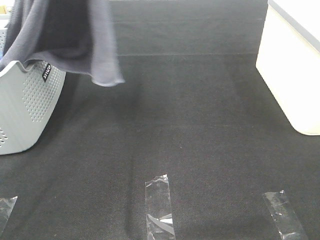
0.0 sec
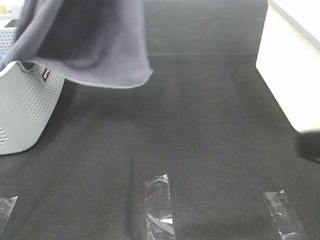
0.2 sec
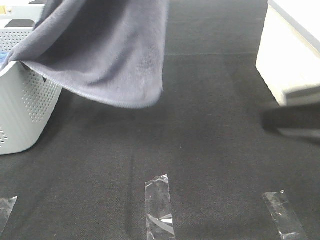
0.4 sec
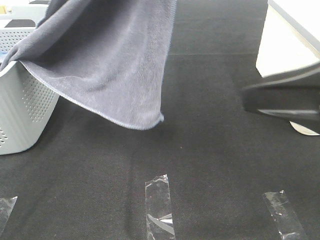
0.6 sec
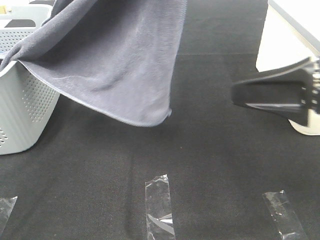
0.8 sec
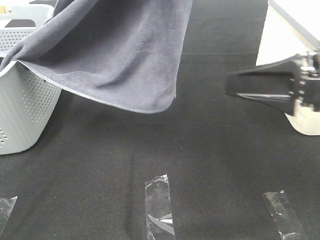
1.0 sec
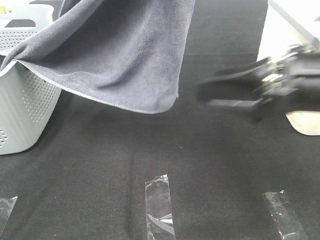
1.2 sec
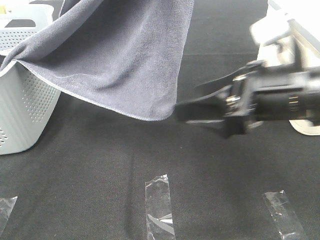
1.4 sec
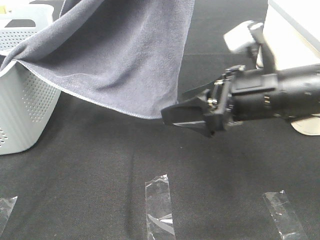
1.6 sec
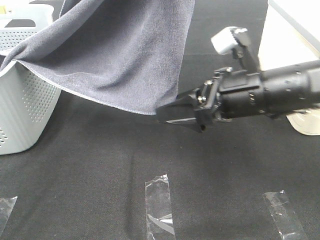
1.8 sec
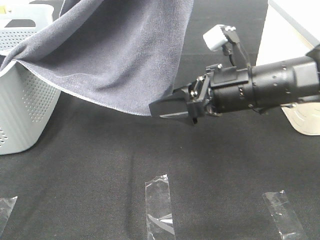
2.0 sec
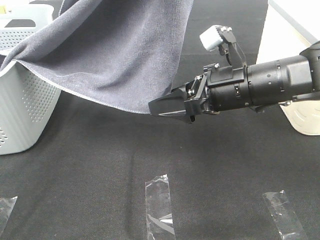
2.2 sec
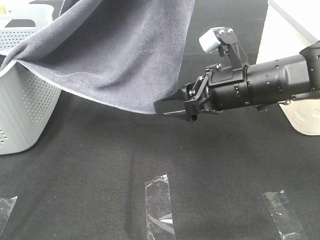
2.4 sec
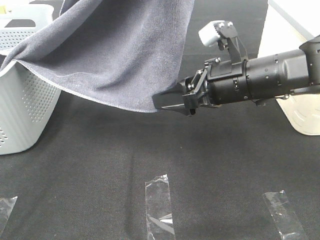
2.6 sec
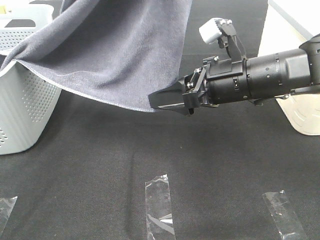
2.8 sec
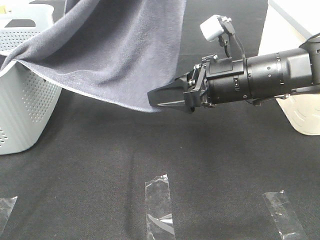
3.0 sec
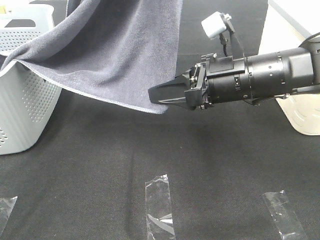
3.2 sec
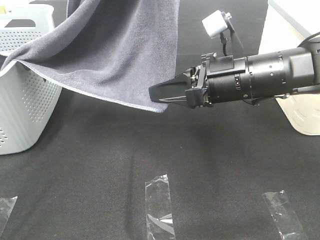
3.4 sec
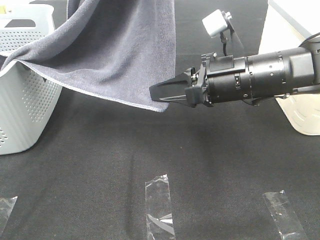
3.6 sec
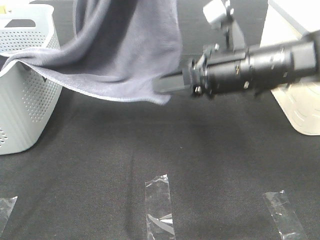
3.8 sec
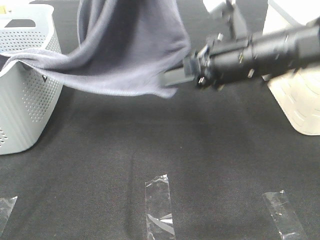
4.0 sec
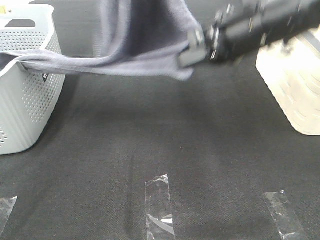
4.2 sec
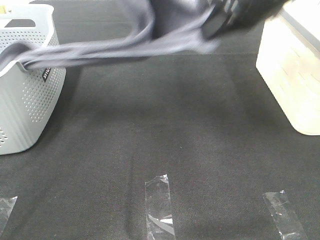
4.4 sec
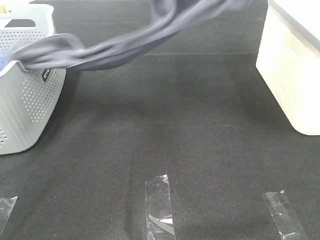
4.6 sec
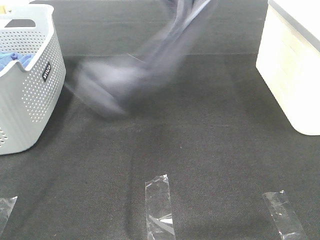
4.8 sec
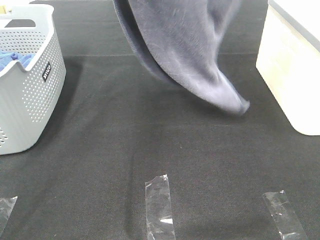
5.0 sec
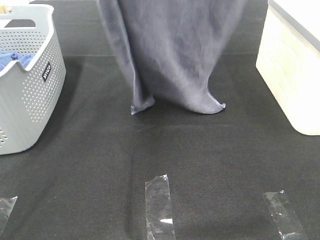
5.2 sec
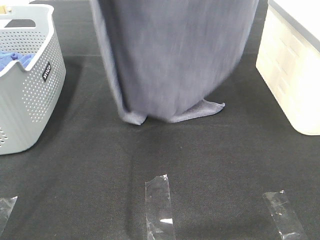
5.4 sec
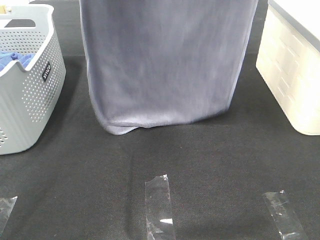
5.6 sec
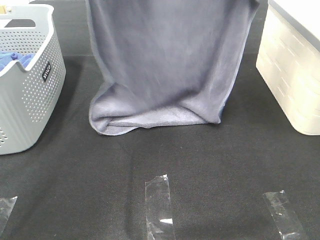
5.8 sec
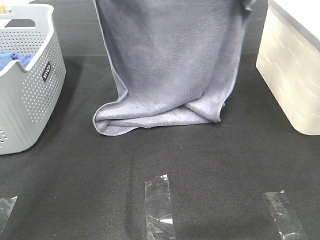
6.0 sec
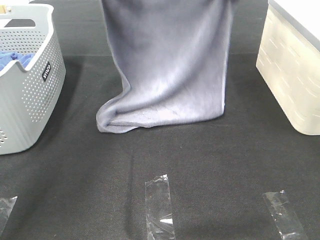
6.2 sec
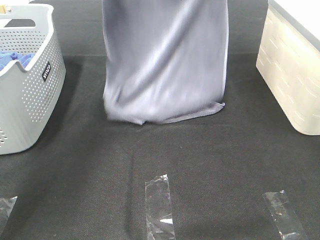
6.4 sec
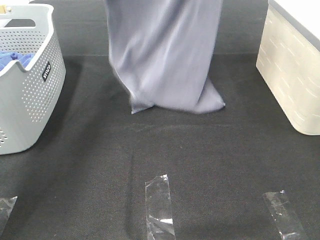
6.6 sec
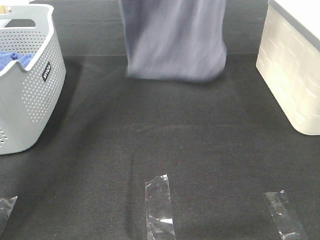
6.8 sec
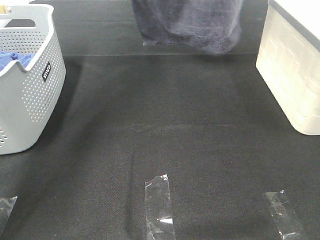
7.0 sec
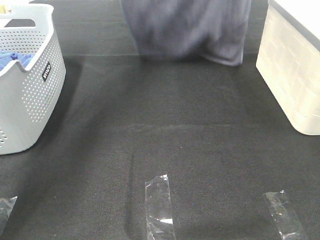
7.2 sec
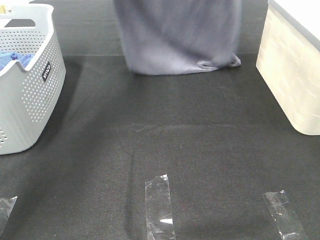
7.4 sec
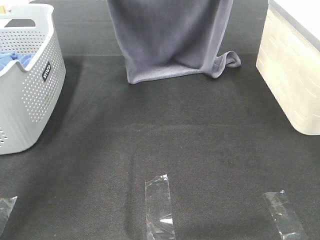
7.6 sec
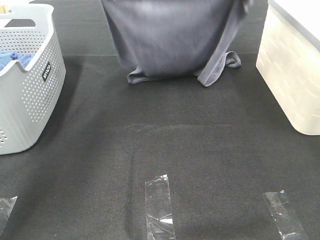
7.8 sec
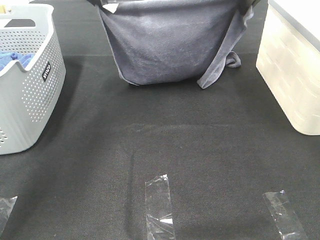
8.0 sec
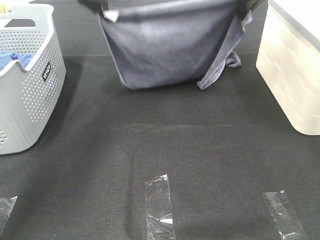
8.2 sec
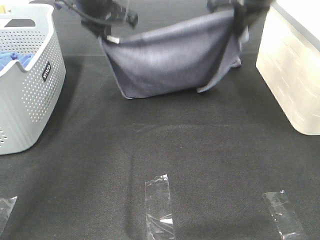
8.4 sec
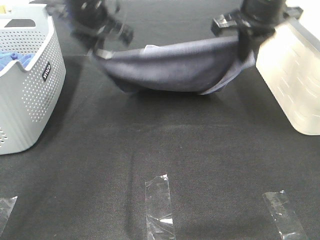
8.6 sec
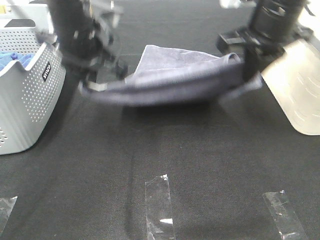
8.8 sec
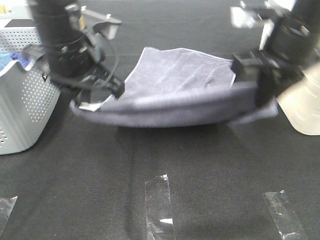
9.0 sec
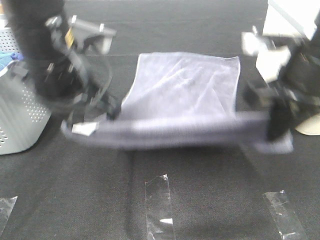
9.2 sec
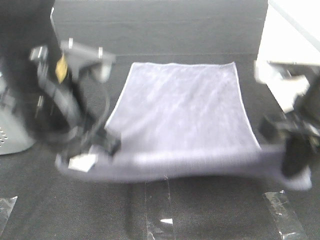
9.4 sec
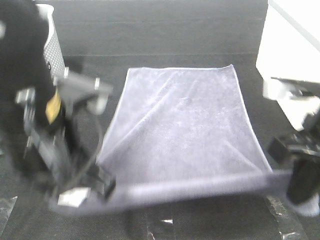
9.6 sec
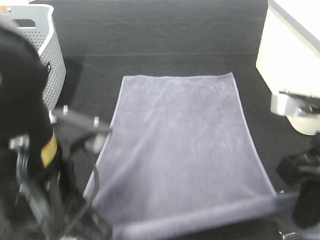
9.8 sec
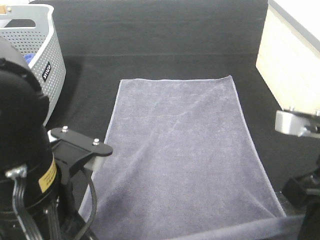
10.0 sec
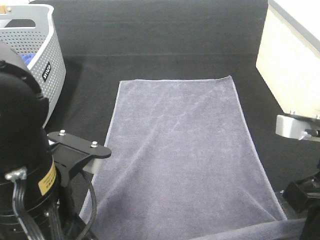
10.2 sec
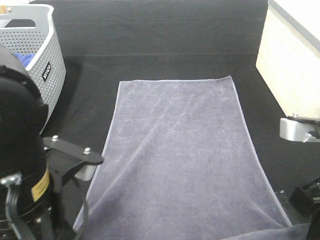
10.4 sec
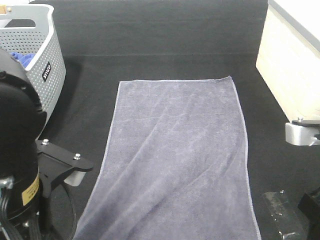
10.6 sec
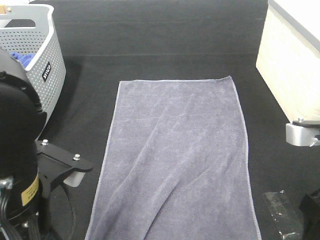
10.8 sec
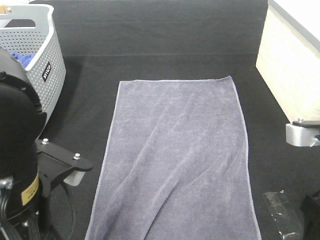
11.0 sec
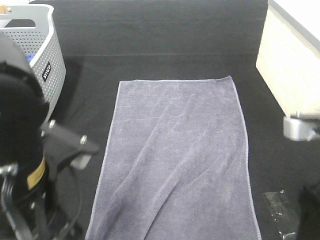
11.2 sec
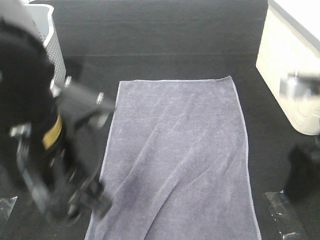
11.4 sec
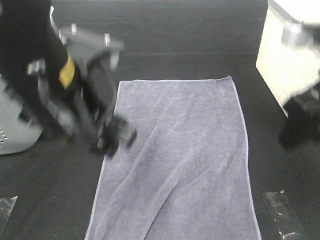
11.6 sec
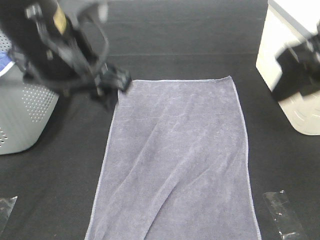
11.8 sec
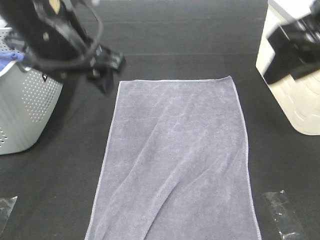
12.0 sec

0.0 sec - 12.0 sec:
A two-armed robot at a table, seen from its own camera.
Task of the whole recording: Remove the towel and place it.
Step, 0.0 sec - 2.0 sec: Right hand: grab a corner of the grey towel and straighten it.
Step, 2.2 sec - 6.2 sec: Left hand: spread the grey towel flat on the table.
Step, 2.2 sec - 6.2 sec: Right hand: spread the grey towel flat on the table.
0.0 sec - 1.6 sec: The left gripper heads to the right and backward, covering about 10 cm. The right gripper heads forward, to the left and downward, covering about 20 cm.
1.6 sec - 3.0 sec: The grippers make only small movements.
3.0 sec - 4.4 sec: The left gripper shifts approximately 15 cm forward and downward. Meanwhile the right gripper goes some 15 cm upward, and closes.
4.4 sec - 6.0 sec: The left gripper travels downward and forward by some 15 cm, while the right gripper moves forward, some 10 cm, and reaches approximately 20 cm upward, then returns.
6.0 sec - 7.6 sec: The left gripper moves about 15 cm upward and comes back, while the right gripper goes upward and returns, roughly 20 cm each way.
7.6 sec - 9.0 sec: The grippers both shift backward and downward by roughly 20 cm.
9.0 sec - 10.4 sec: The grippers both shift backward by about 15 cm.
10.4 sec - 12.0 sec: The left gripper moves forward and upward, some 20 cm, and opens up, while the right gripper shifts some 15 cm upward and forward, and opens its fingers.

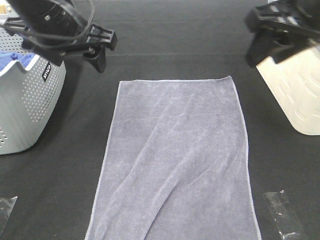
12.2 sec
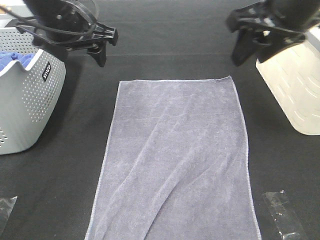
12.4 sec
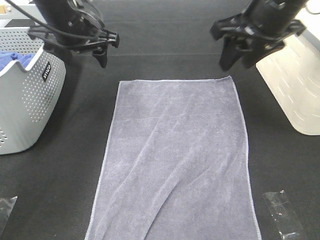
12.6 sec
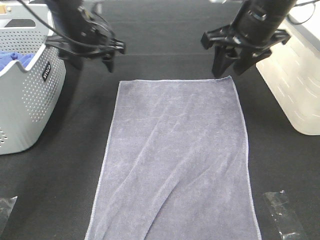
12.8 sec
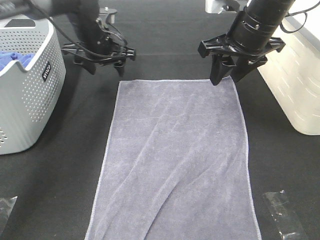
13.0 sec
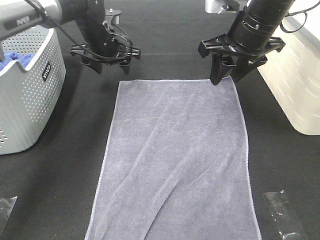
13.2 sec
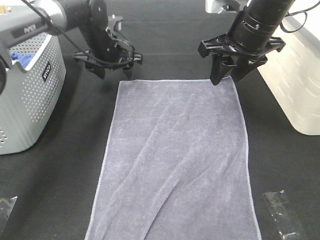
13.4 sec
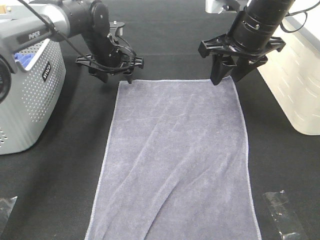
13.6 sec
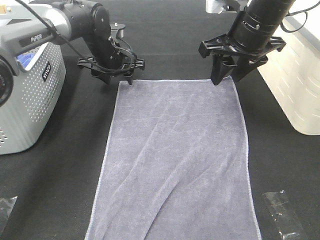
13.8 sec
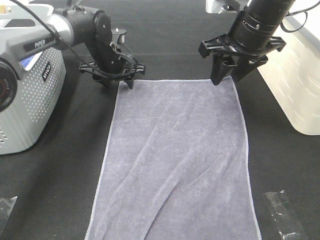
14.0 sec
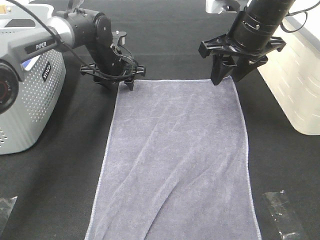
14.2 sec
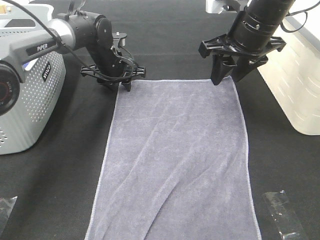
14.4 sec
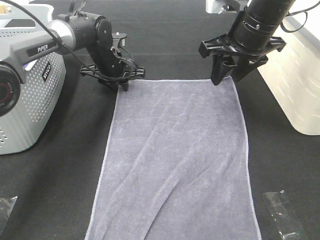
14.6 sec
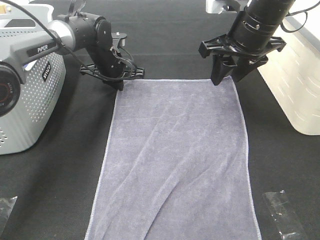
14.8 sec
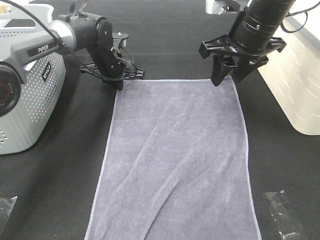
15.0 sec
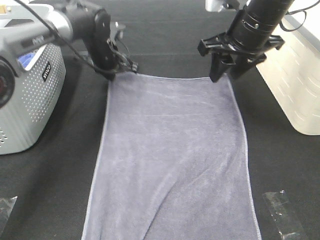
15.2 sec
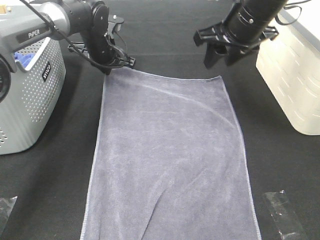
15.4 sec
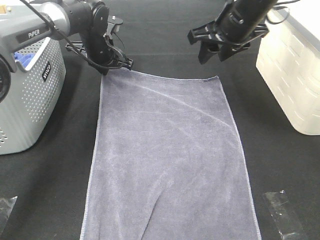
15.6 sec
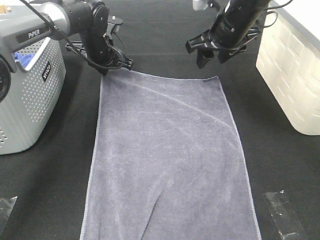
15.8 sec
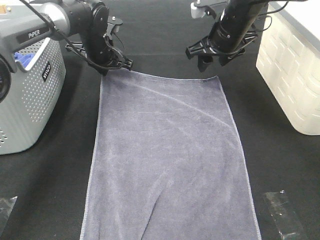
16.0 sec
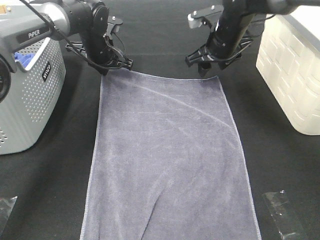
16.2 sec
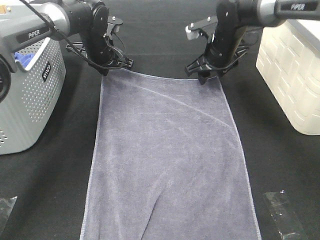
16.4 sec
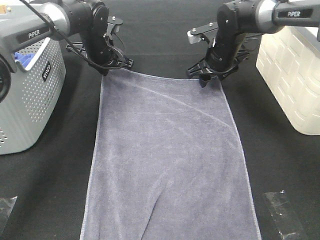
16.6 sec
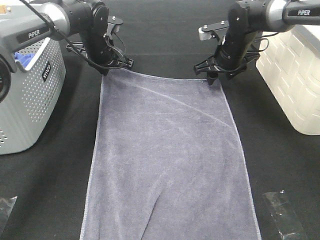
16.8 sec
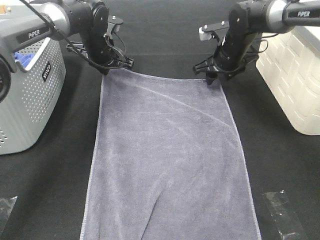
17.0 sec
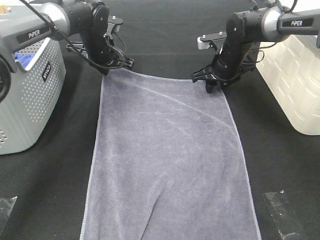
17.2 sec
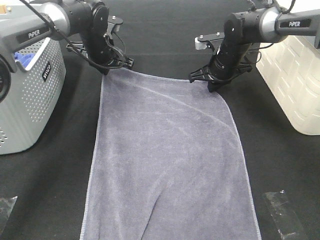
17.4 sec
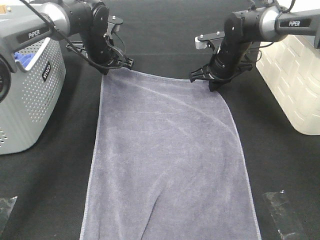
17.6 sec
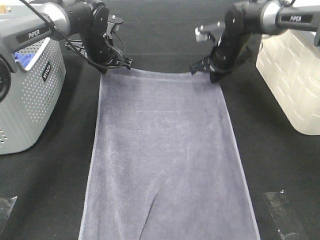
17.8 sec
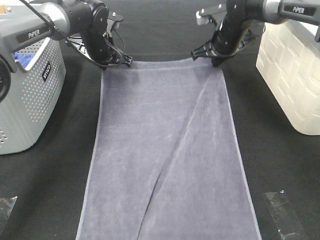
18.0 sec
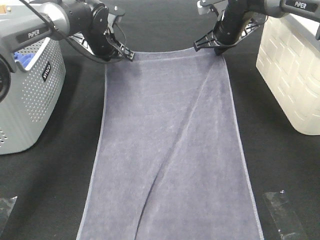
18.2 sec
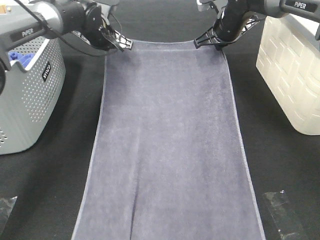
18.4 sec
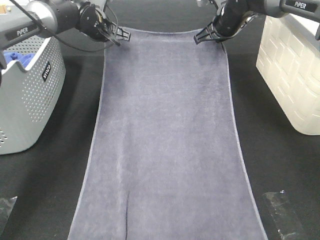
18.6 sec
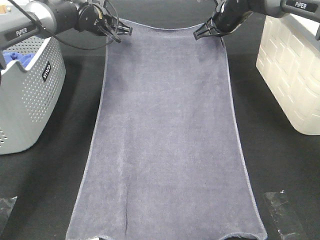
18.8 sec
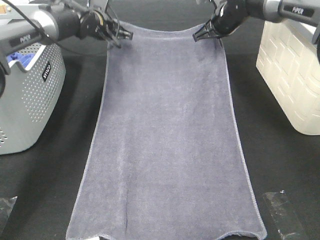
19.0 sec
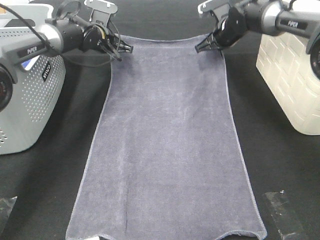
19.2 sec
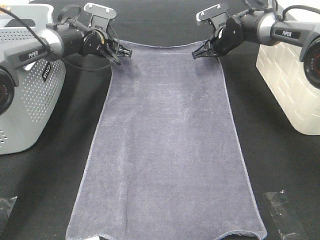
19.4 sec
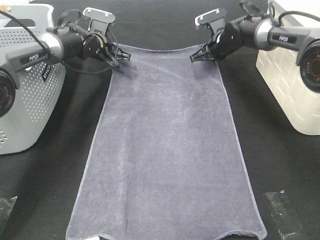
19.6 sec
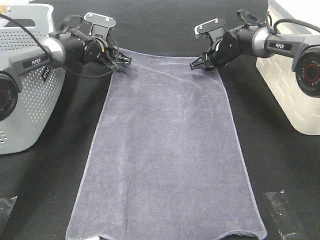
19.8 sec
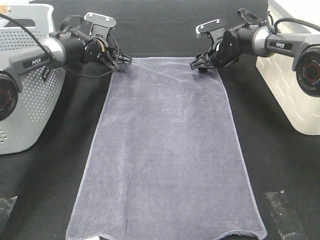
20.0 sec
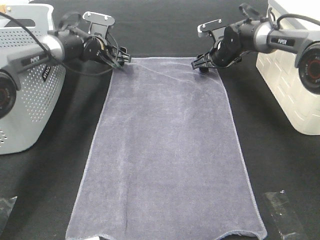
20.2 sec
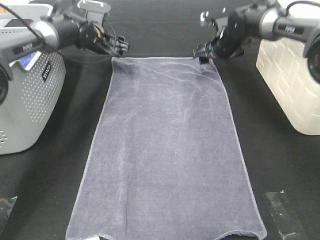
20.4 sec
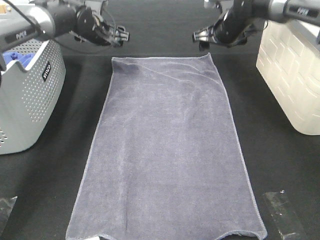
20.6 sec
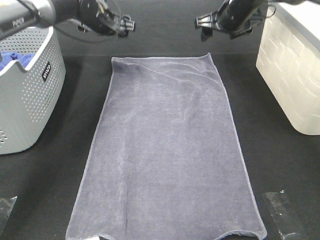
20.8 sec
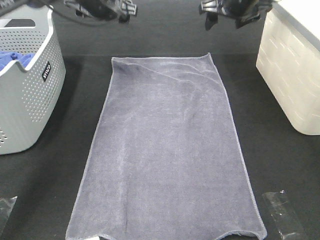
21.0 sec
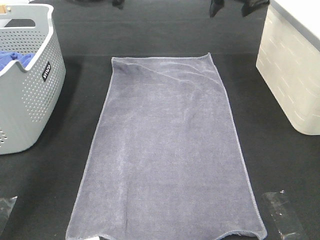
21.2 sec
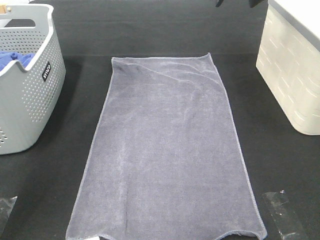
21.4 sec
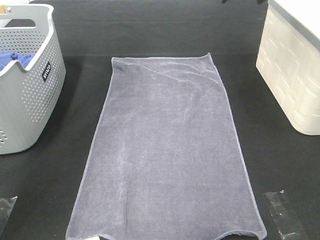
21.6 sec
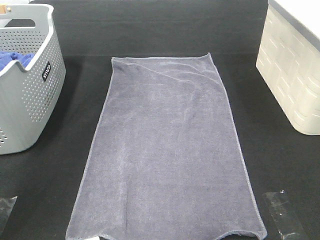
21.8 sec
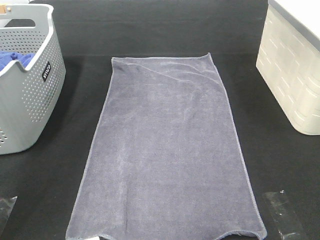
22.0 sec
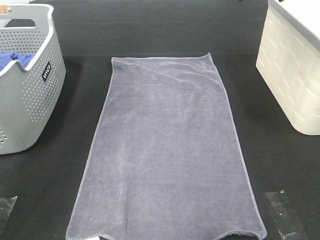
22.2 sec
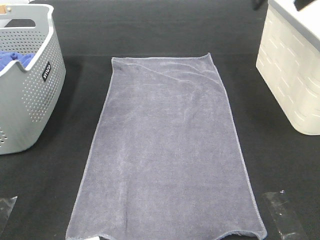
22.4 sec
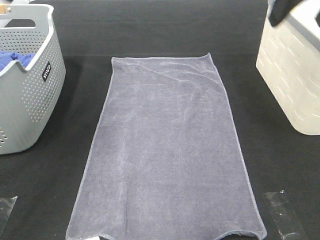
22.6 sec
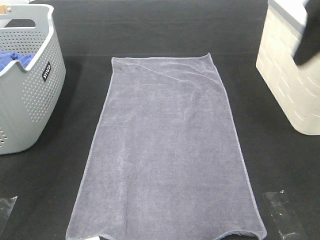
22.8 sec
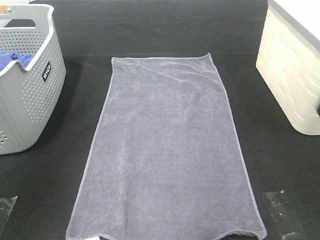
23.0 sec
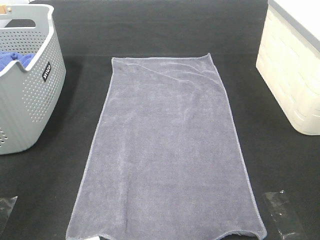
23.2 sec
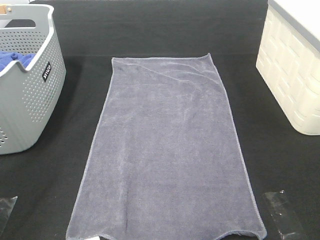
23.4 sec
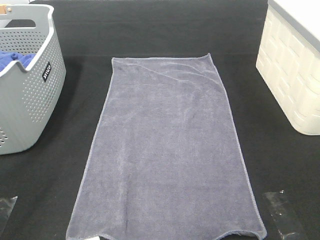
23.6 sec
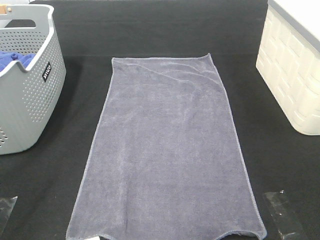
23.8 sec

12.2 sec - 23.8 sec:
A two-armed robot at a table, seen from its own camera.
Task of the whole recording: Remove the towel and place it.
12.2 sec - 13.6 sec: The left gripper is displaced forward and downward by about 25 cm. Meanwhile the right gripper goes about 15 cm forward and downward.
13.6 sec - 15.0 sec: The left gripper closes.
15.0 sec - 16.6 sec: The right gripper travels forward and downward by about 15 cm.
16.6 sec - 18.0 sec: The right gripper closes its fingers.
18.0 sec - 19.4 sec: The left gripper shifts by approximately 5 cm; the right gripper changes place by about 5 cm.
19.4 sec - 21.0 sec: The grippers both shift upward by about 15 cm. The left gripper opens its fingers; the right gripper opens up.
21.0 sec - 22.4 sec: The grippers both shift backward and upward by roughly 25 cm.
22.4 sec - 23.8 sec: The right gripper travels backward by roughly 30 cm. Meanwhile the left gripper travels backward and downward by some 35 cm.
